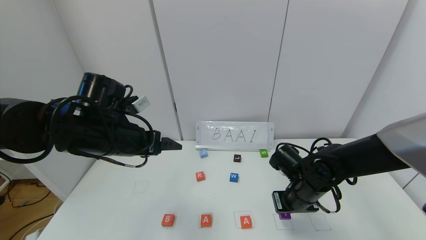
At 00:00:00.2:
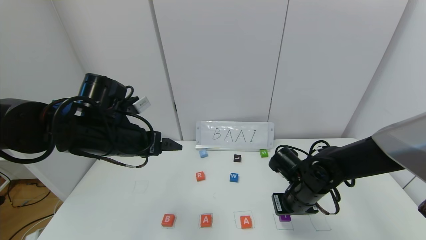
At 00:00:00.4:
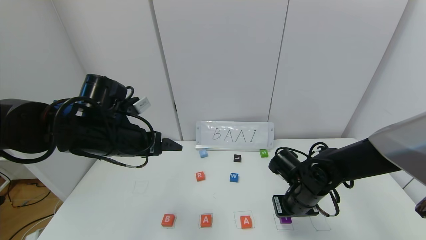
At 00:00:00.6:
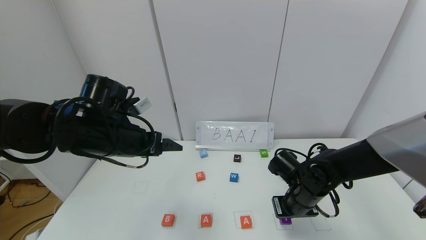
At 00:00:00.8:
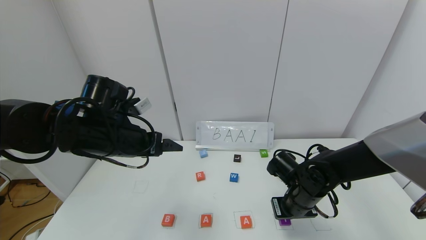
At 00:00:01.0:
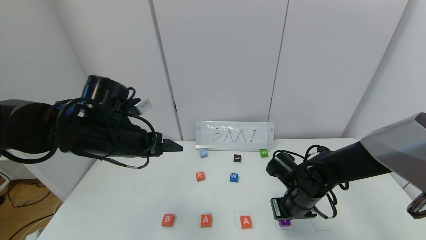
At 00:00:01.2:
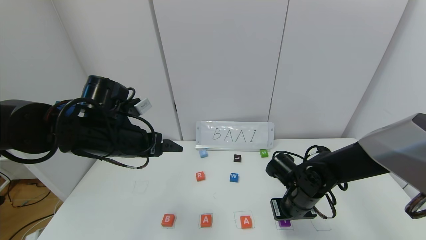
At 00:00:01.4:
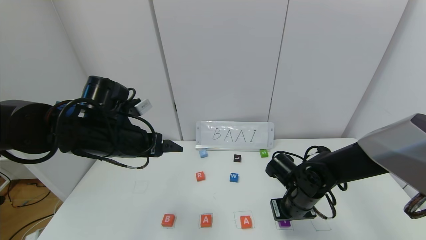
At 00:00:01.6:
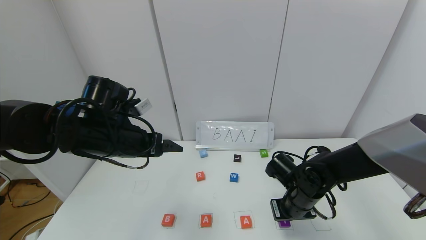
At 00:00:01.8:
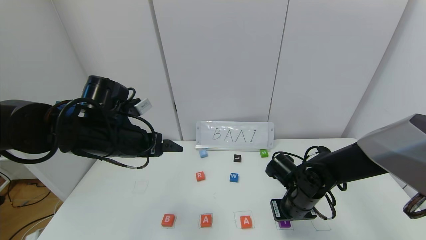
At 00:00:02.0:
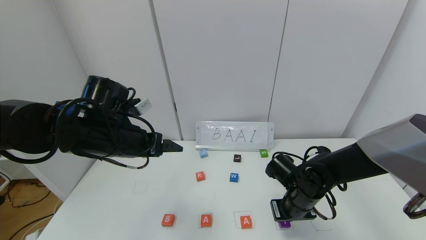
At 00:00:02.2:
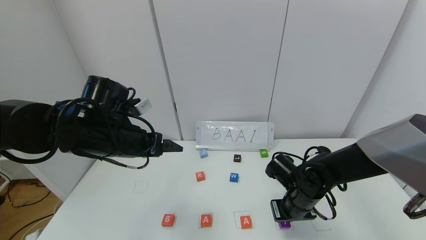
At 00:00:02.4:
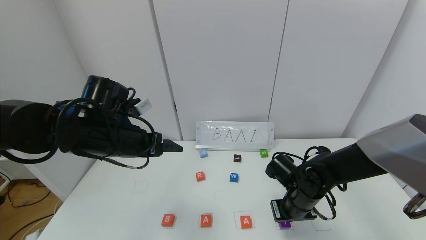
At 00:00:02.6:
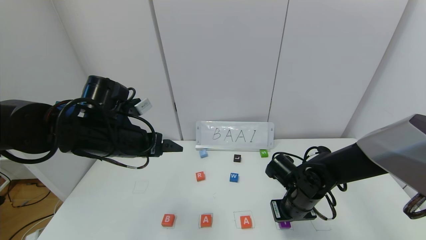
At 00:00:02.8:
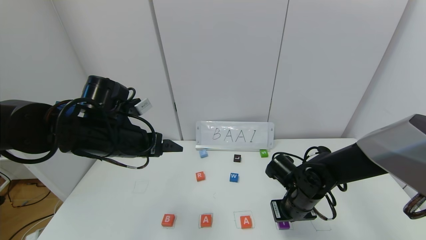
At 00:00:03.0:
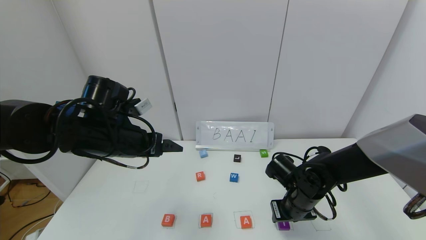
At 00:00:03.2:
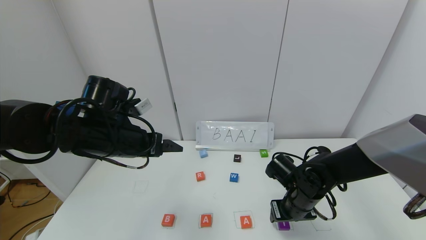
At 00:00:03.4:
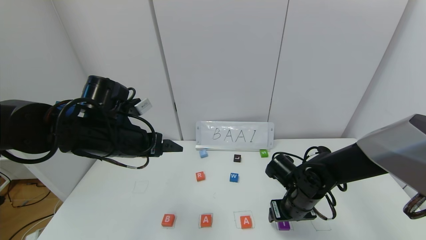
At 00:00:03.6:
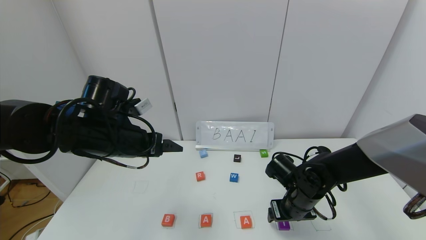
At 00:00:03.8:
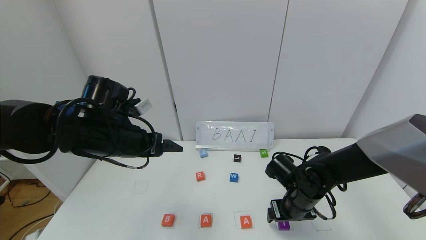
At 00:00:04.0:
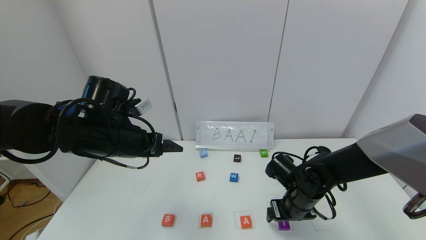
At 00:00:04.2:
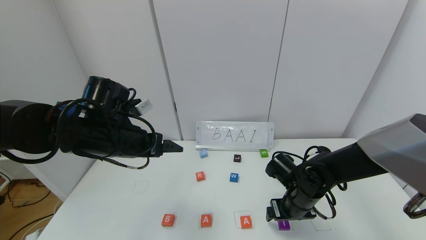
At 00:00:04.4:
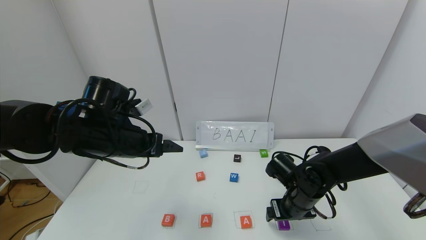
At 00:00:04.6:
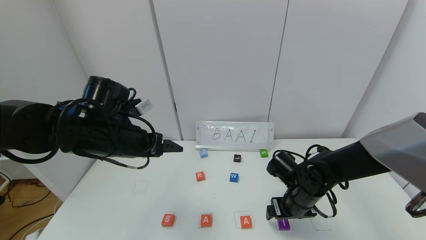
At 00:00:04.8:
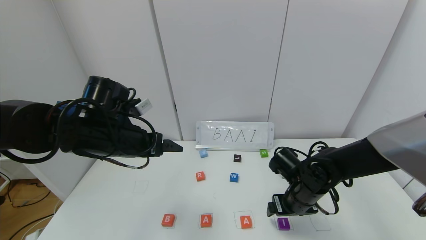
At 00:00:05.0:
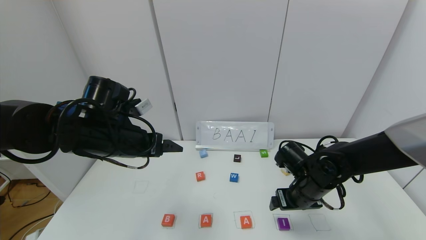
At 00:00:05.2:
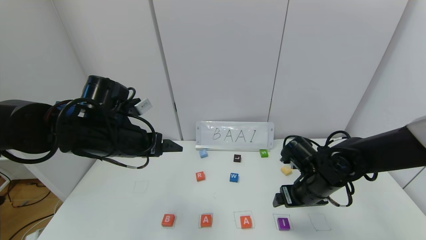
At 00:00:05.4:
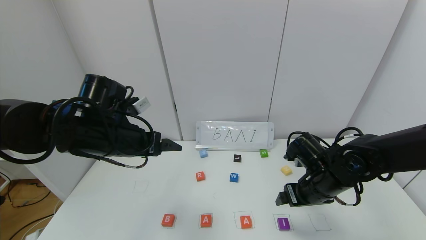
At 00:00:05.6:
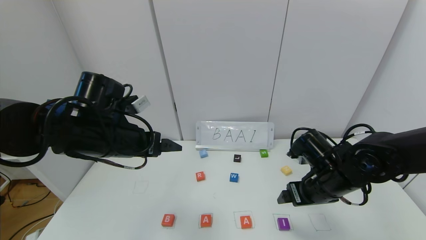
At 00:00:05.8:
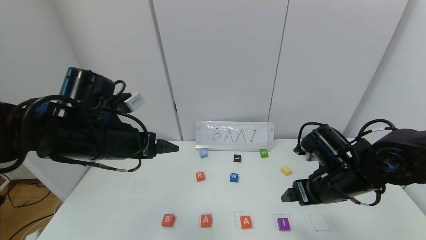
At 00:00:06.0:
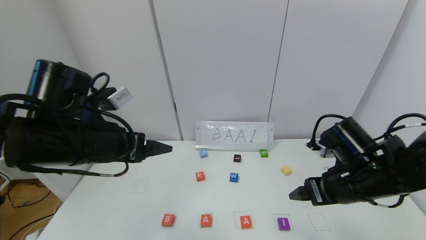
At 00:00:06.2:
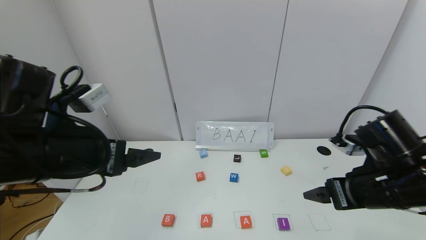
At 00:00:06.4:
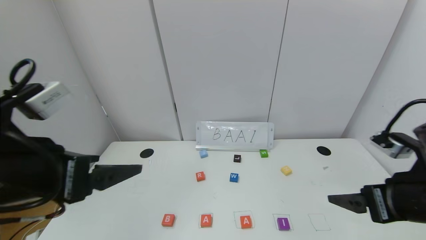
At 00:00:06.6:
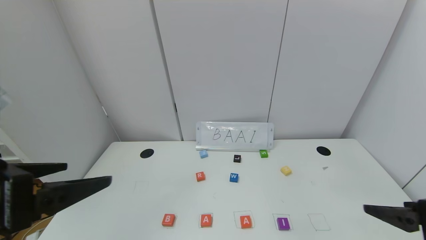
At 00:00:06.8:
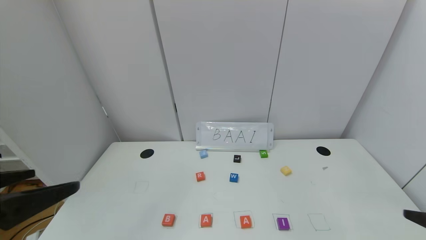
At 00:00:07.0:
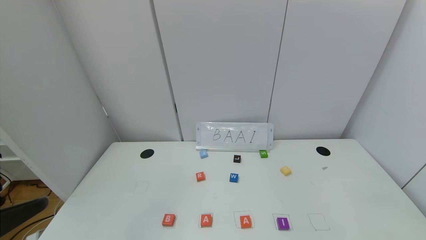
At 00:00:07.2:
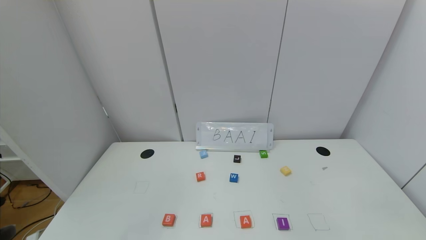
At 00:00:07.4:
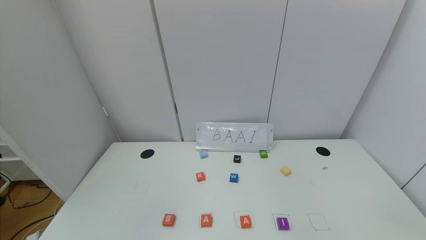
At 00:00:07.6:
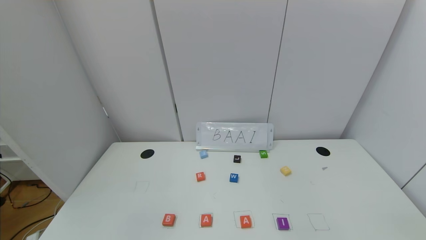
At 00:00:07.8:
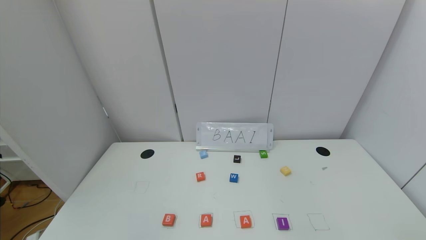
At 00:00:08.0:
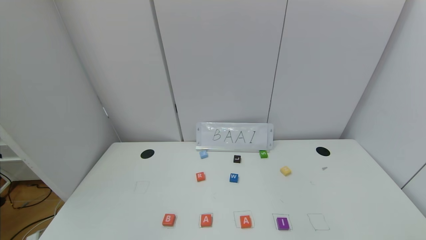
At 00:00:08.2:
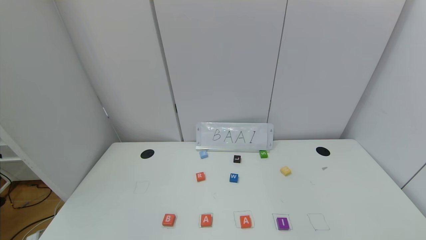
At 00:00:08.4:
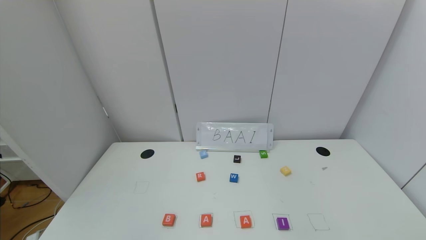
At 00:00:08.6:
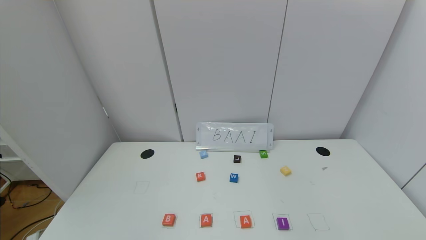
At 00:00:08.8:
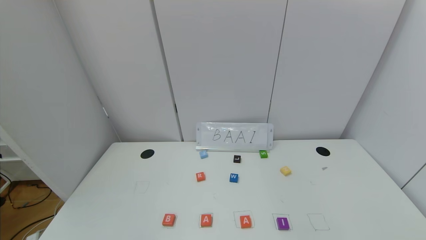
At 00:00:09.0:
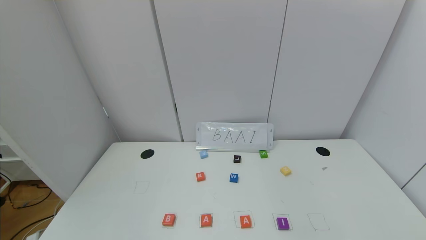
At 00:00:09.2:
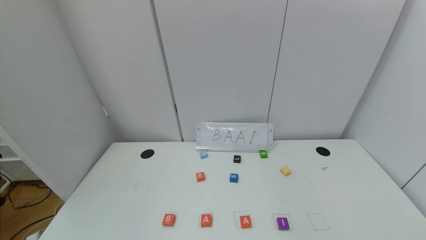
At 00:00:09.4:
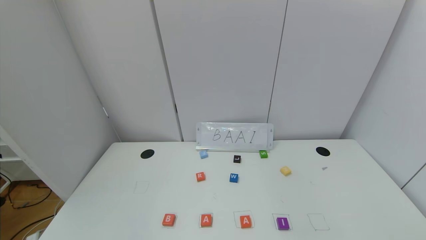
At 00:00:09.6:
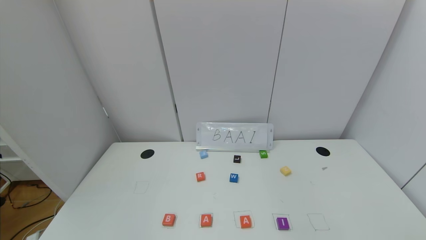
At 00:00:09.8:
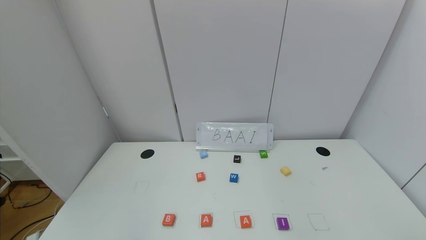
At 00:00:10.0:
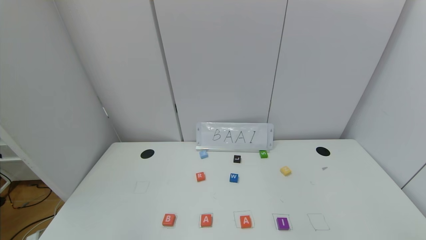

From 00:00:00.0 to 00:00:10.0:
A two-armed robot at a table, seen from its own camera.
Task of the whole recording: use the gripper to find blocks with the letters b, a, a, and i on the table and arrange them into BAAI, then find r and N and turn the arranged baai into brian.
Step, from 00:00:00.0 to 00:00:03.2: Place the block I in the fourth location.
From 00:00:00.0 to 00:00:01.4: The grippers move only a little.
From 00:00:01.4 to 00:00:02.8: Both grippers stay put.
From 00:00:02.8 to 00:00:04.2: The right gripper opens.
From 00:00:04.2 to 00:00:05.8: The right gripper moves upward, roughly 10 cm.
From 00:00:05.8 to 00:00:07.2: The right gripper goes about 30 cm backward and to the right. The left gripper is displaced backward by approximately 25 cm.

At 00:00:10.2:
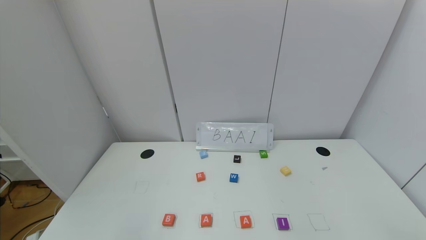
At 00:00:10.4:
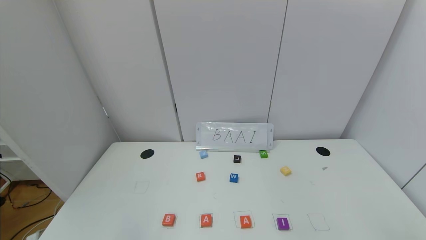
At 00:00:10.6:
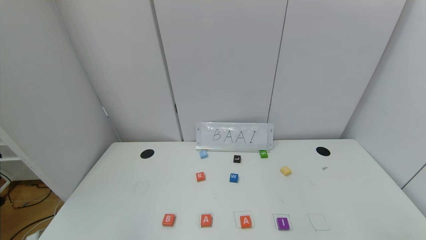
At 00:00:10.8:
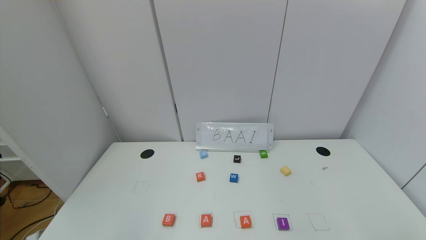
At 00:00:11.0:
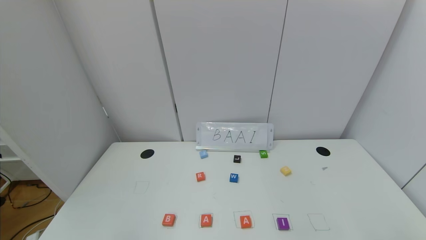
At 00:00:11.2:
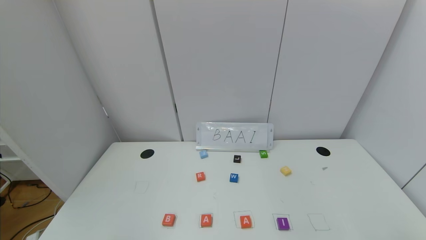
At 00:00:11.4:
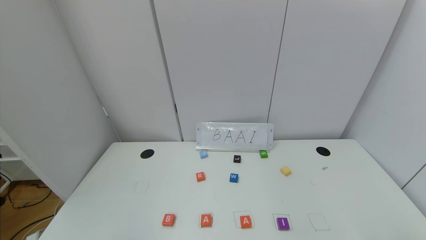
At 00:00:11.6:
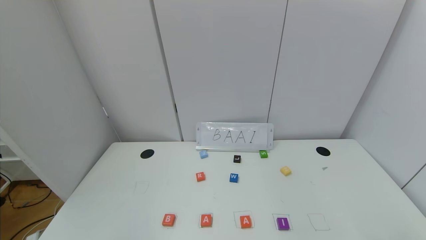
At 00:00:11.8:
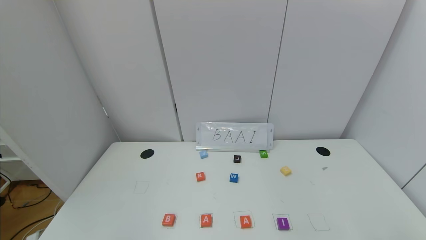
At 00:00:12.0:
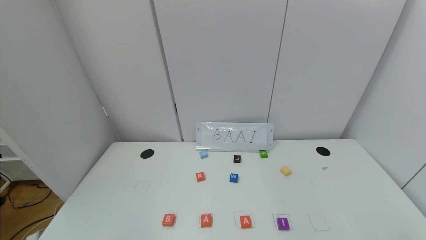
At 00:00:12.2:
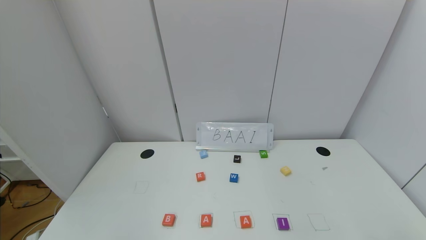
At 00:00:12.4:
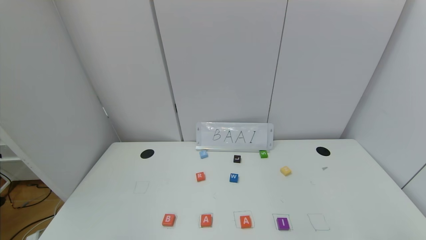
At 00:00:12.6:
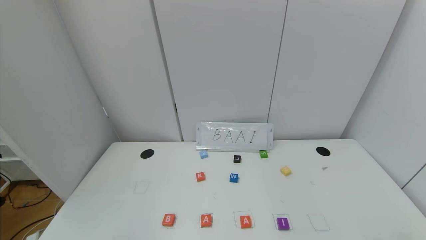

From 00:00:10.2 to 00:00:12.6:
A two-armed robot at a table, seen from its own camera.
Task of the whole recording: use the gripper to find blocks with the letters b, a, a, and i on the table and arrange them into BAAI, then find r and N and turn the arranged baai into brian.
From 00:00:11.4 to 00:00:12.6: Both grippers stay put.
